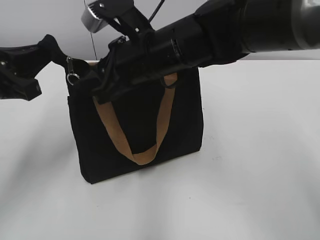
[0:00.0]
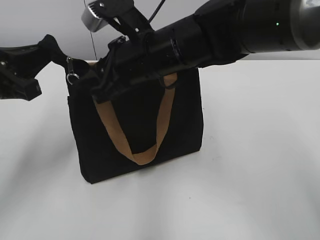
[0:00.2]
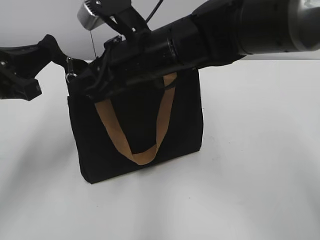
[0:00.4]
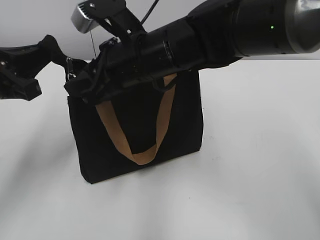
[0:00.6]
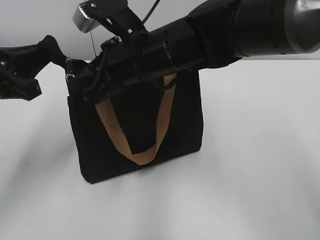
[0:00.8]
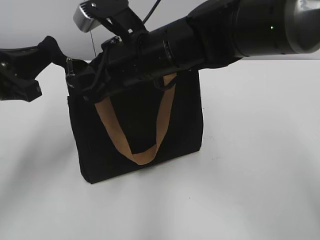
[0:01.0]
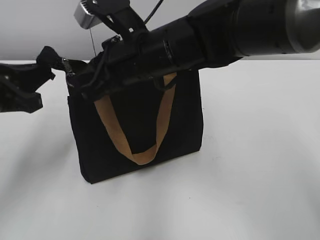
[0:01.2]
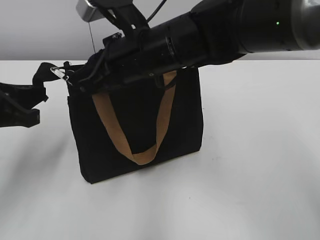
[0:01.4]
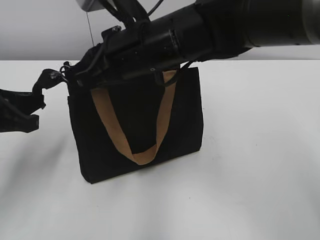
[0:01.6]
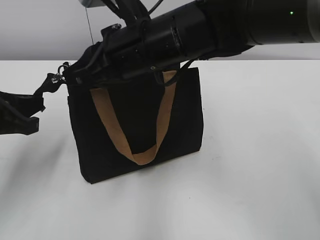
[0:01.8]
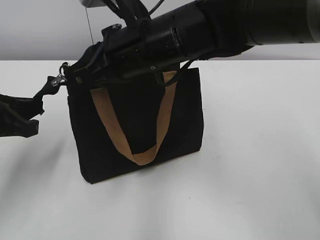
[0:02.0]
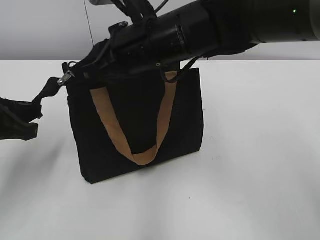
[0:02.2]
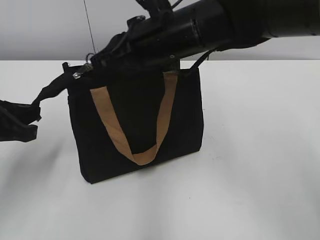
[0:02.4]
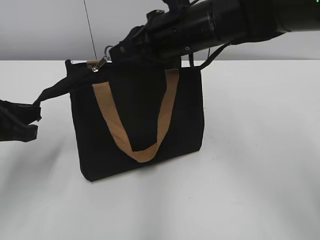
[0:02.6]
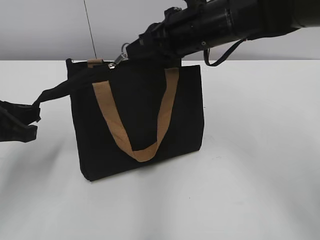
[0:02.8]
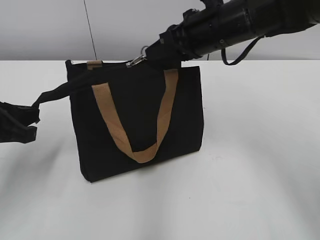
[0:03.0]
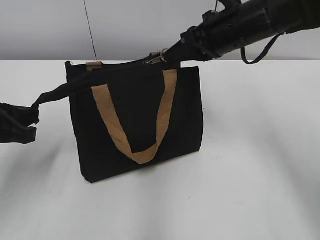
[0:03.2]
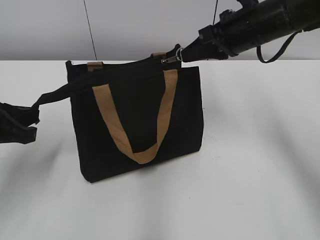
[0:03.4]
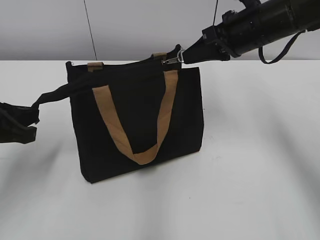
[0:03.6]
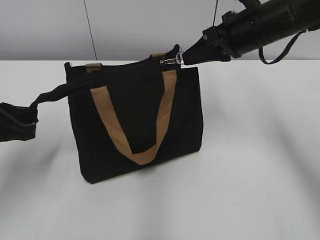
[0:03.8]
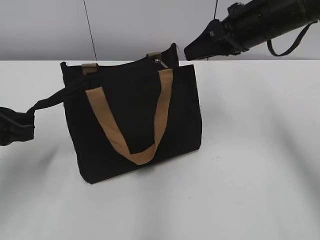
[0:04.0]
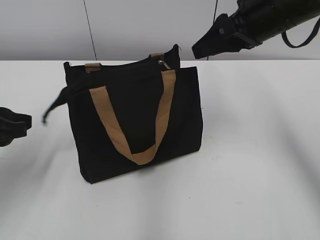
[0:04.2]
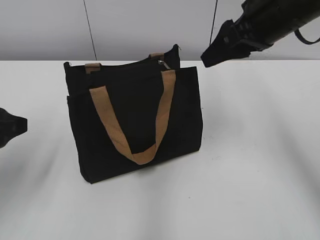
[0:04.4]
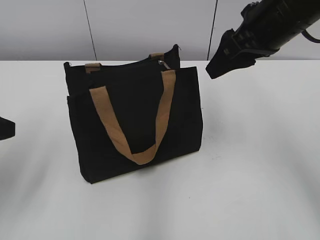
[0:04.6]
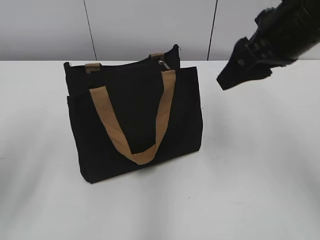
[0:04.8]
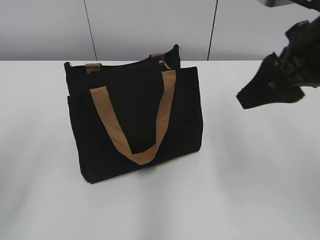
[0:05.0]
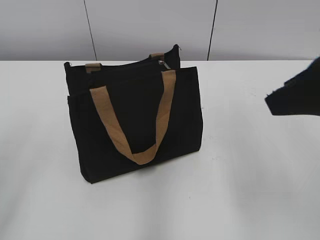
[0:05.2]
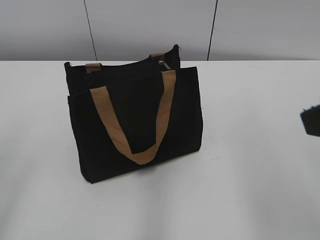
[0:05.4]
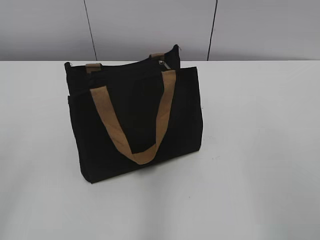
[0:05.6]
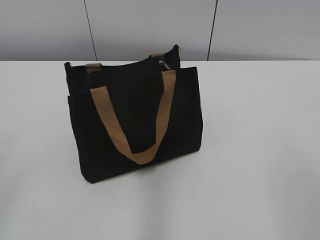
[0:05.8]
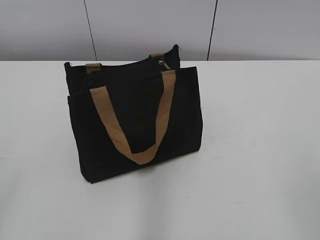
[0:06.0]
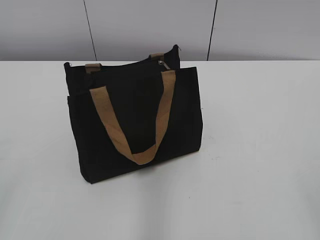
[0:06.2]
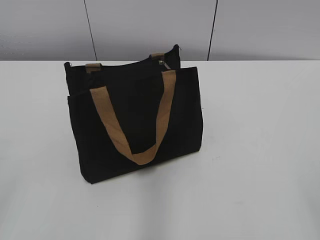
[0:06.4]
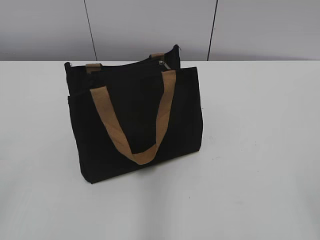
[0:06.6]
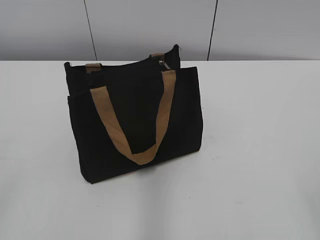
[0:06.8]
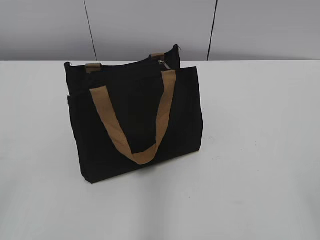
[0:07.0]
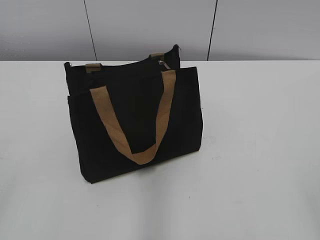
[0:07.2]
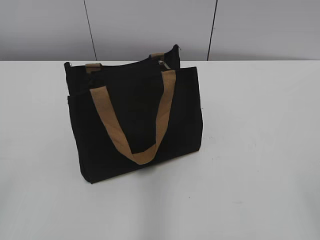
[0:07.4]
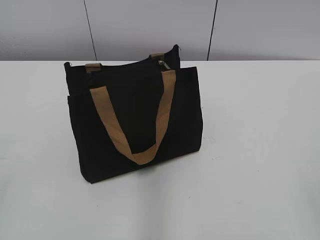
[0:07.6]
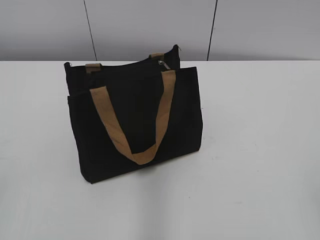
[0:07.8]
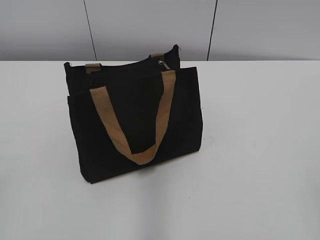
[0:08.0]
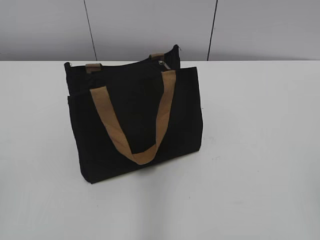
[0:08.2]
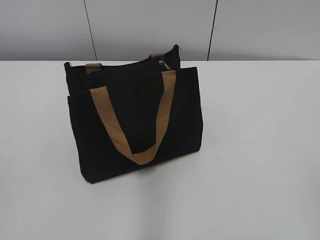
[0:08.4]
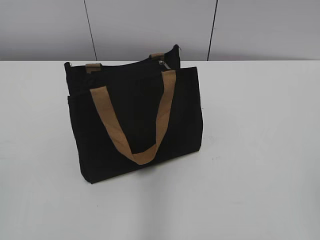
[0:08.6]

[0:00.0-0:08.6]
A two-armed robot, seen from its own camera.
Step, 0:00.0 to 0:03.8: Zip up the bag with your right hand.
Step, 0:04.0 to 0:04.2: Grab the zipper with your left hand.
0:00.0 to 0:01.4: The right gripper closes up.
0:01.4 to 0:02.8: The right gripper heads to the right, covering about 5 cm.
0:02.8 to 0:04.4: The left gripper opens its fingers. Meanwhile the right gripper heads to the right, covering roughly 10 cm, and opens its fingers.
0:04.4 to 0:05.8: The left gripper heads backward and upward, covering roughly 20 cm. The right gripper travels backward by some 30 cm.
